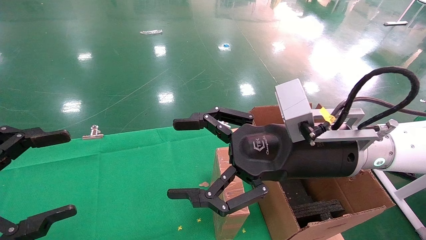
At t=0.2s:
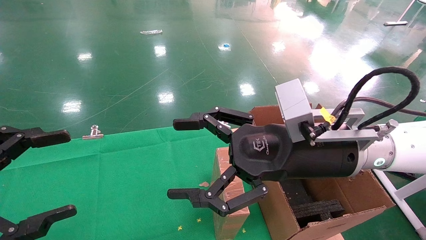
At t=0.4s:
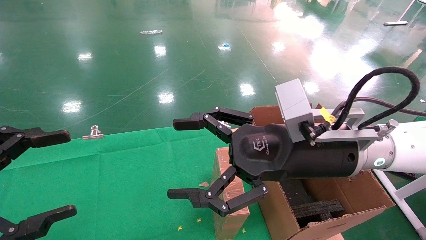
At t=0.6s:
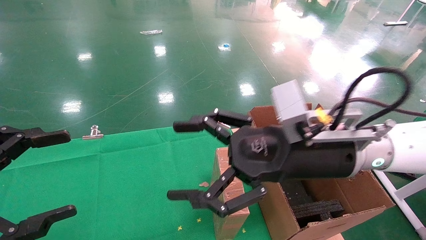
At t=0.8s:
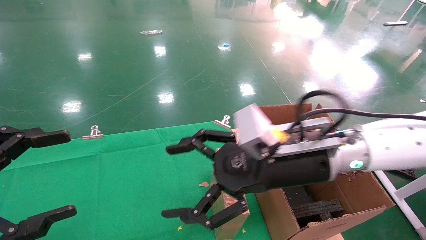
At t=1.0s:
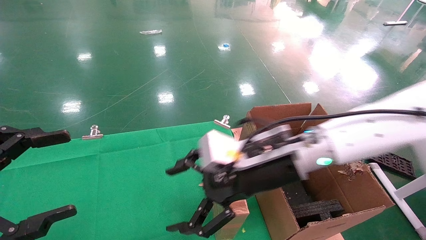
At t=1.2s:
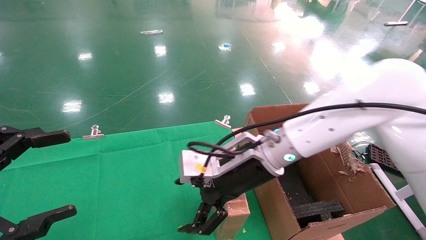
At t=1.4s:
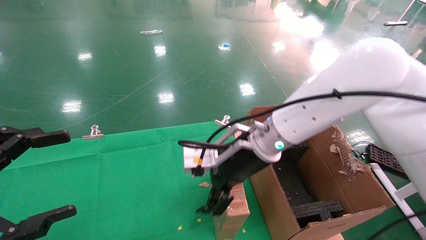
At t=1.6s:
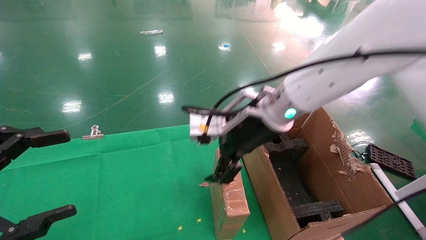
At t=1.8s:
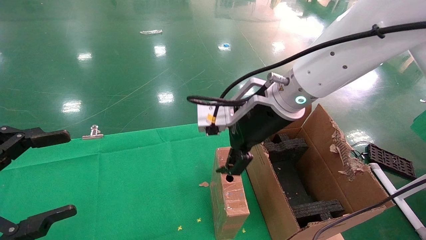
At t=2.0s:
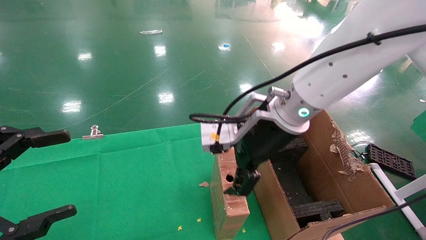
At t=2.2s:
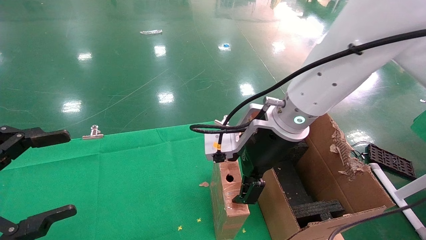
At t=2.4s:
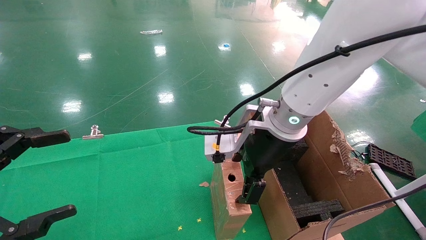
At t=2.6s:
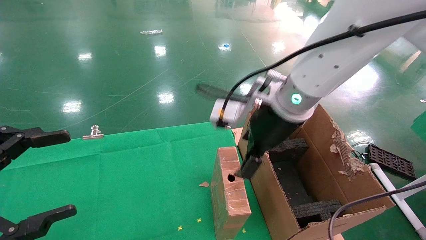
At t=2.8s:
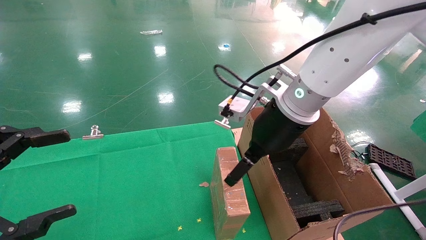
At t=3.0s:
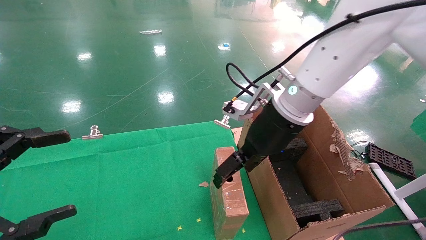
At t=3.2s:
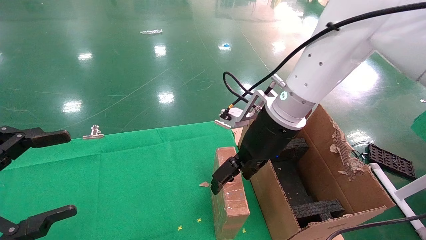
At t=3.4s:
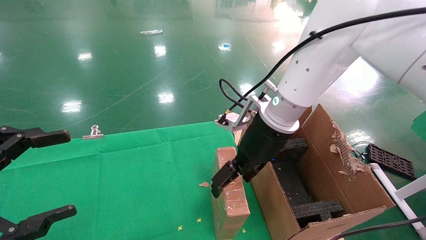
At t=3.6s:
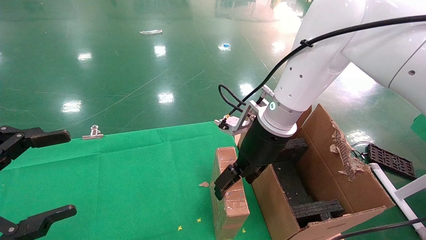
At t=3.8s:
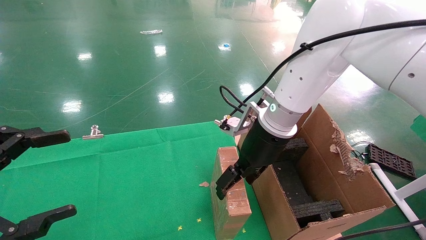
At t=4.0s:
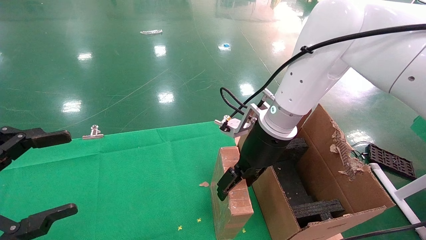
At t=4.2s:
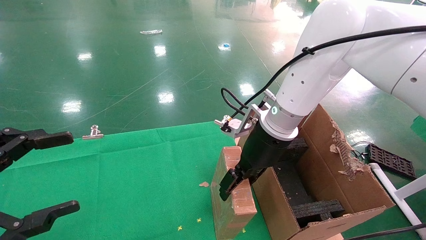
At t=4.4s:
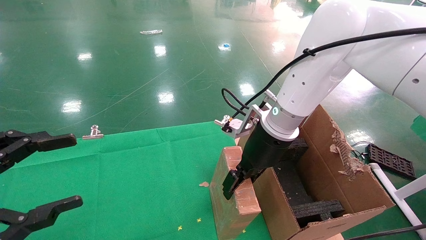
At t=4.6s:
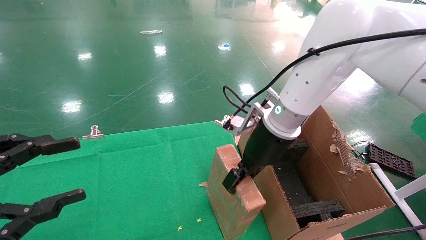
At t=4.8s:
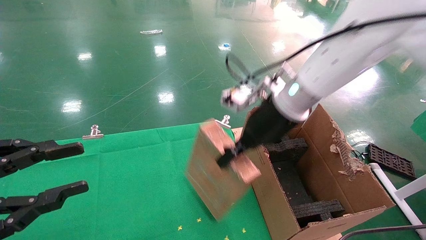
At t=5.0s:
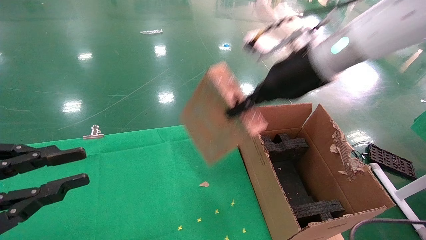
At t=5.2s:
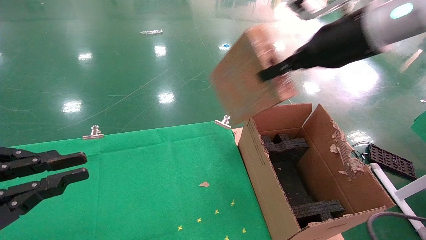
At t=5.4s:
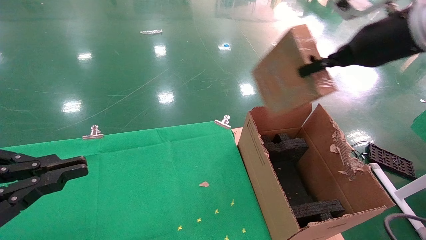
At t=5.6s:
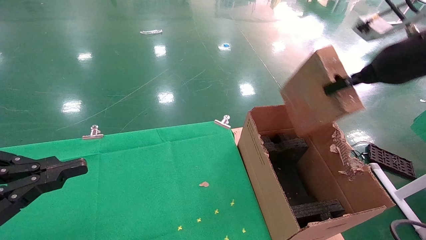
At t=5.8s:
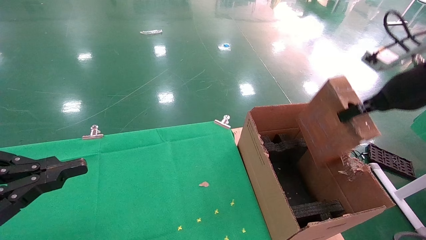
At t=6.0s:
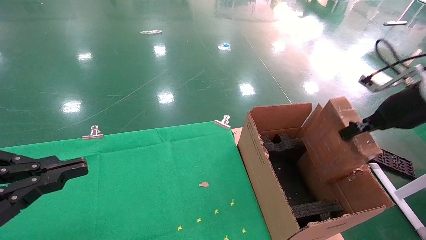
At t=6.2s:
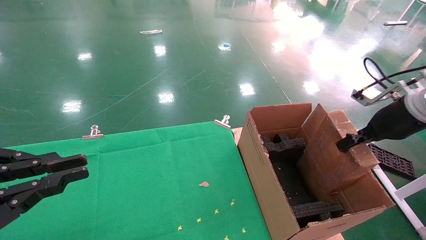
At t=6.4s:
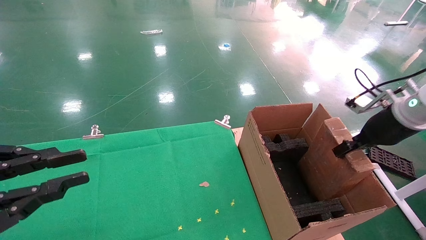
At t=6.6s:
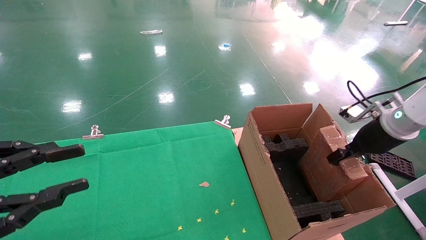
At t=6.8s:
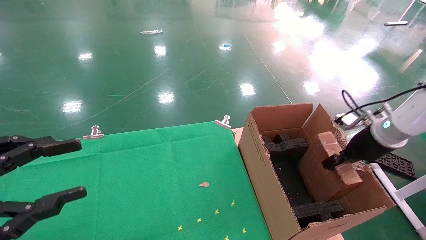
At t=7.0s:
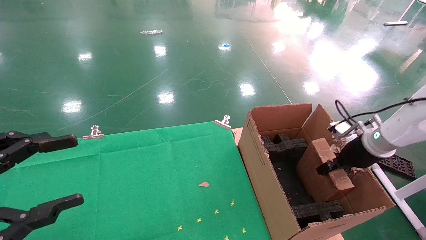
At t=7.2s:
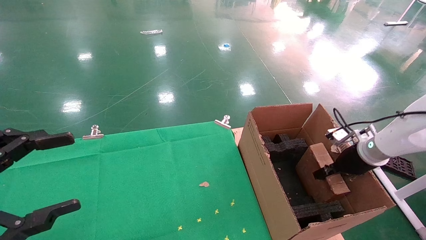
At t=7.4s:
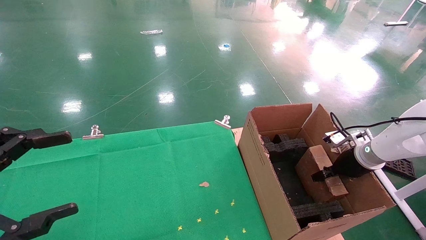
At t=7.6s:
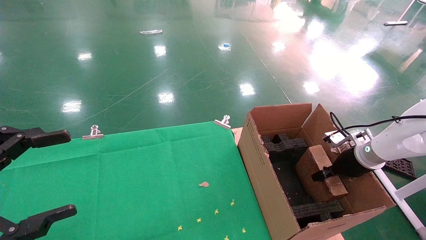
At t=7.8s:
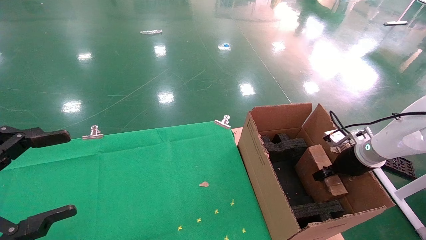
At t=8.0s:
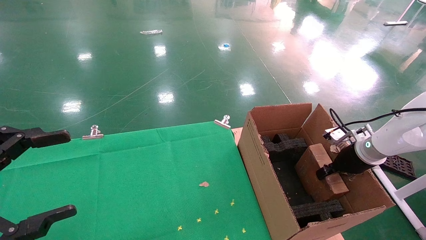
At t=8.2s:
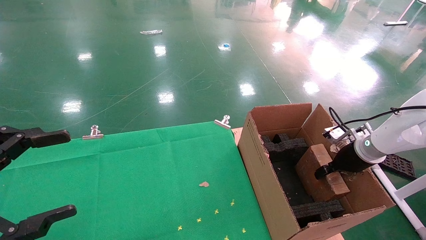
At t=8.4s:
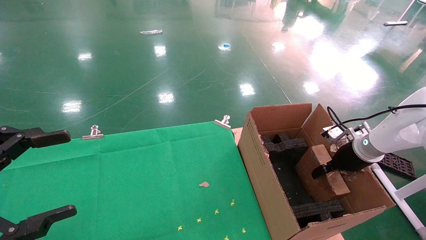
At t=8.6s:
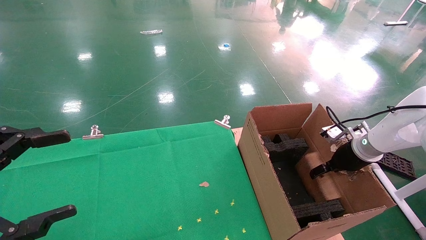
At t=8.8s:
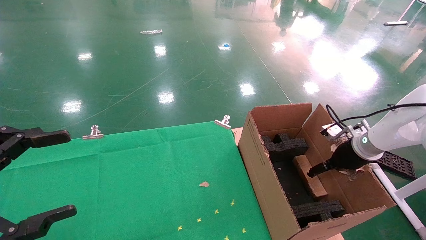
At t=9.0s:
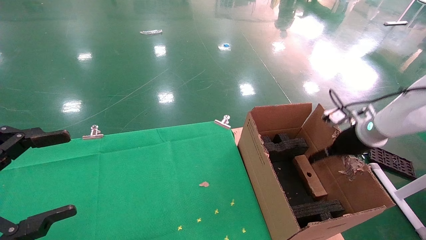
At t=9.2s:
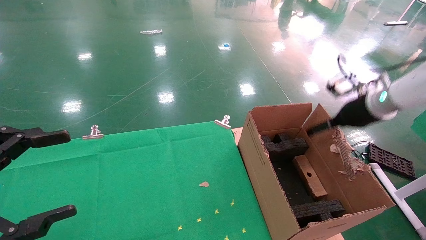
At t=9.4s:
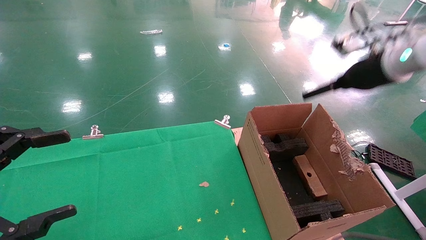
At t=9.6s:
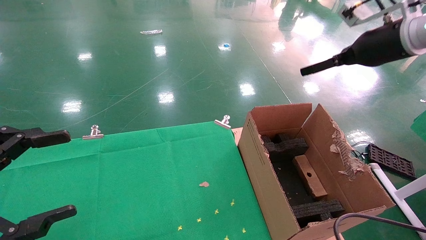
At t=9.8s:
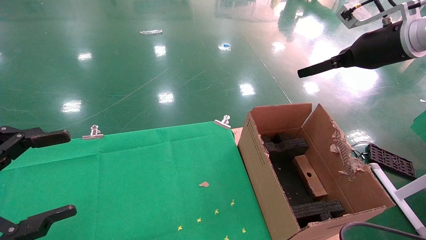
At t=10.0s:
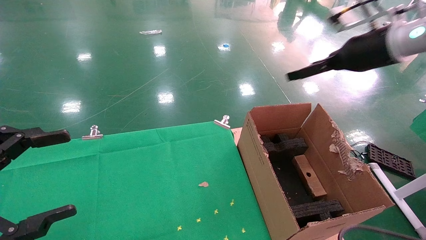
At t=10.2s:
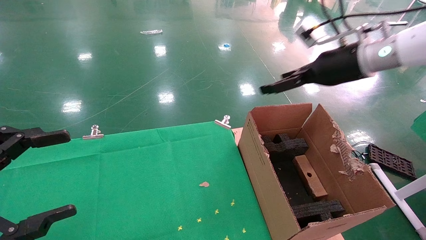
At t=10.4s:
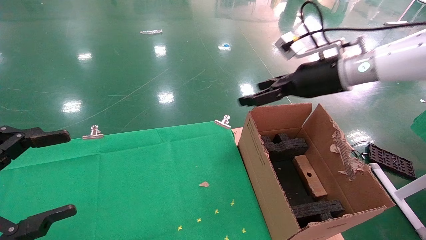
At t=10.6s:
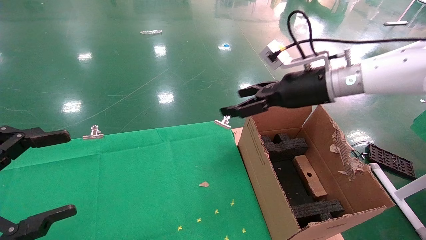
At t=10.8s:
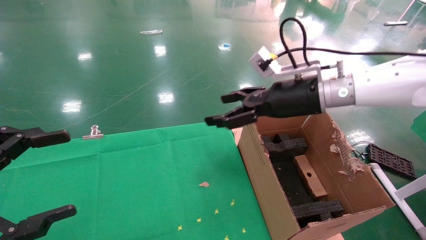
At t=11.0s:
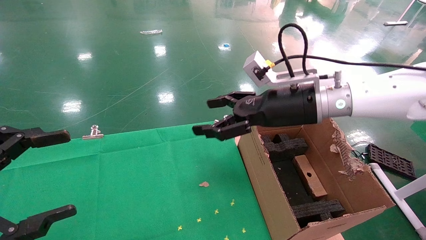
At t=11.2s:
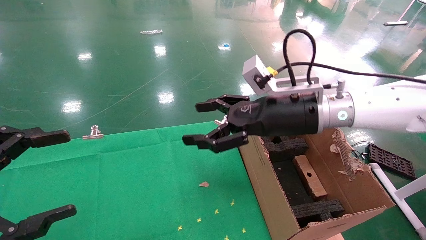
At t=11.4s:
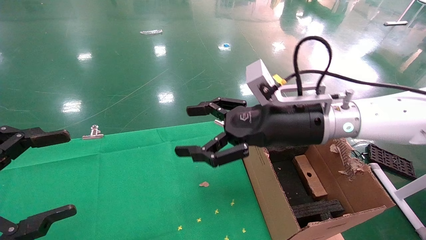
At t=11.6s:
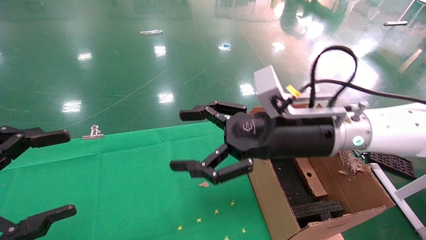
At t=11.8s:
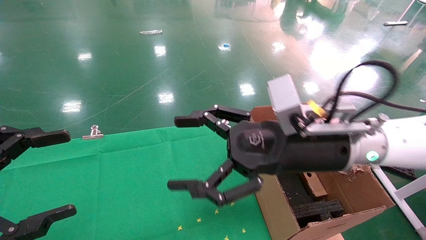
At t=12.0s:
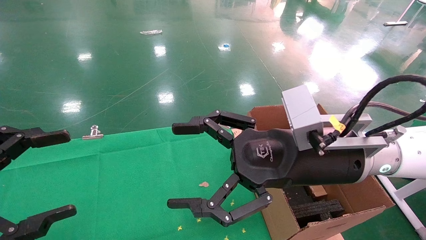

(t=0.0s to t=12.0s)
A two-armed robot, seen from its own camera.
Task of the whole recording: using a robotic arm to pick up a cardboard box and palace it the carton.
Step, t=1.0s - t=4.8s: Pick up the mouse and the power cord paper box.
Step, t=5.0s - t=9.2s: Place the mouse and the power cord paper box into the container.
t=0.0s - t=1.6s: The right gripper moves forward and to the left, approximately 10 cm.
t=3.0s - t=4.4s: The right gripper closes.
t=4.4s - t=6.0s: The left gripper closes its fingers. Meanwhile the right gripper goes some 25 cm to the right, and closes.
t=6.0s - t=7.6s: The right gripper shifts approximately 20 cm downward and forward. The left gripper opens.
t=7.6s - t=9.0s: The right gripper moves upward, approximately 10 cm, and opens its fingers.
t=9.0s - t=10.4s: The right gripper travels to the left and upward by some 20 cm.
t=10.4s - t=12.0s: The right gripper shifts about 20 cm backward, to the left and downward.

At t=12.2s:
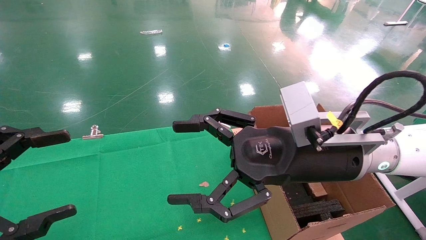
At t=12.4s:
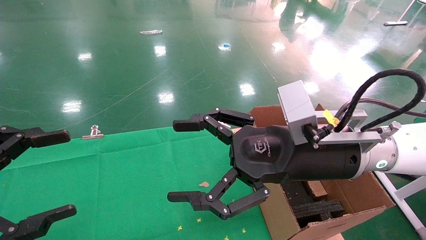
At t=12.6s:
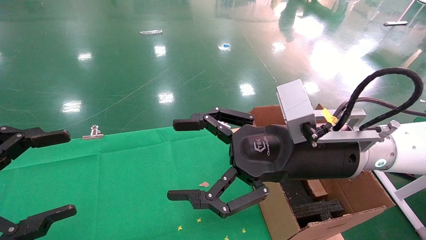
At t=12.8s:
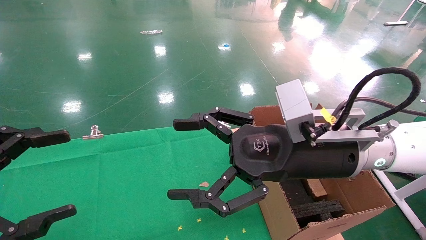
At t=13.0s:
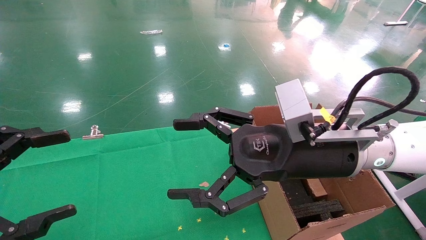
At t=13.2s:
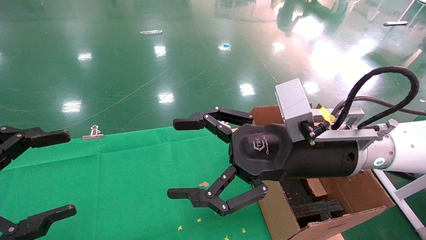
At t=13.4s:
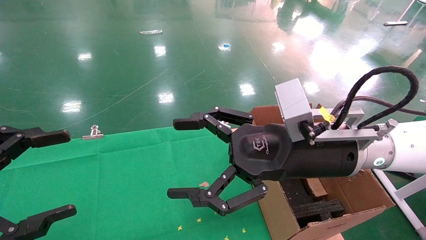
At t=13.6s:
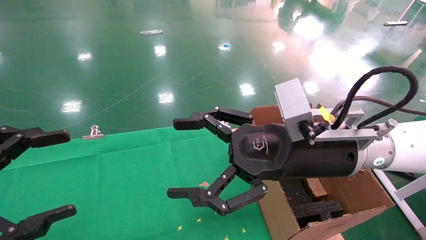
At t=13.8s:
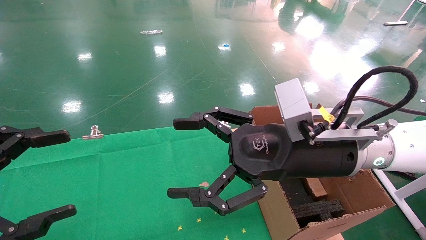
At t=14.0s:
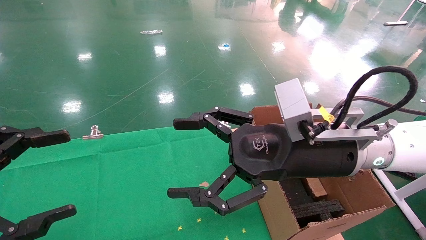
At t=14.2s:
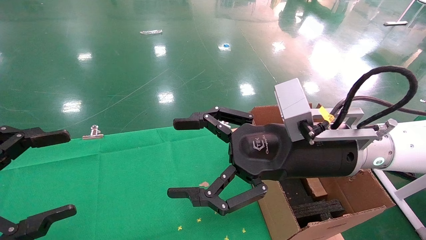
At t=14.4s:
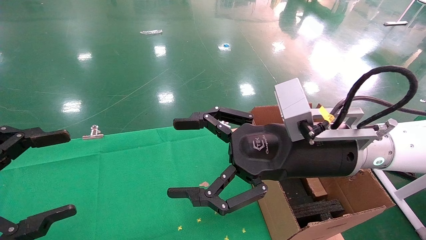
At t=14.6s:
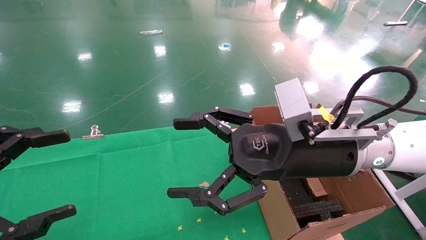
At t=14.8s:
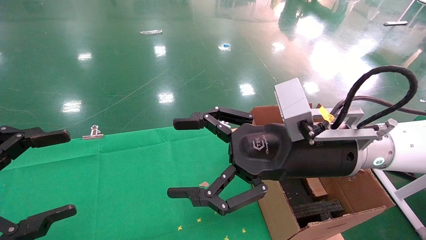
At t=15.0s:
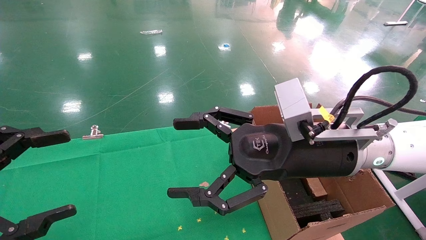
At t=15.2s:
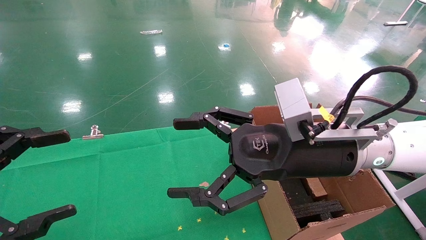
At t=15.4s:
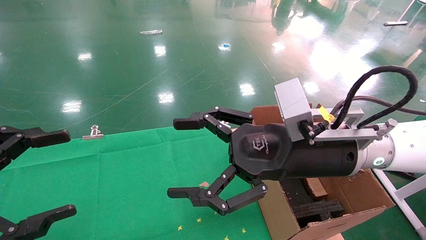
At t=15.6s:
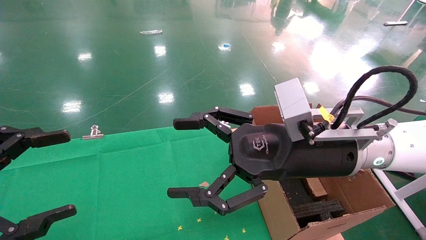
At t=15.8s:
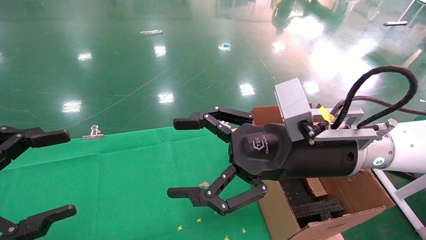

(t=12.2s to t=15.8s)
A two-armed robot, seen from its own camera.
Task of the whole recording: using a robotic arm to pick up a cardboard box and palace it the carton.
t=12.2s - t=15.8s: The two grippers keep their place.
